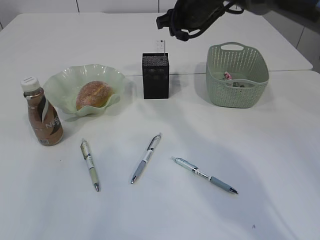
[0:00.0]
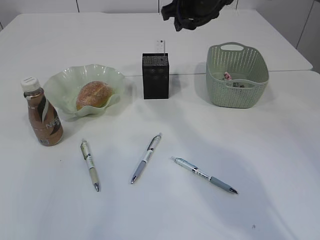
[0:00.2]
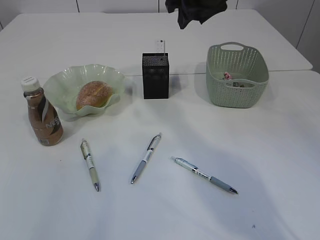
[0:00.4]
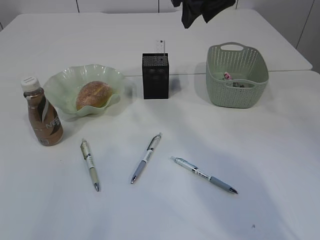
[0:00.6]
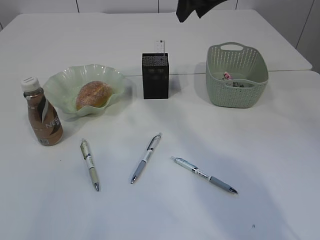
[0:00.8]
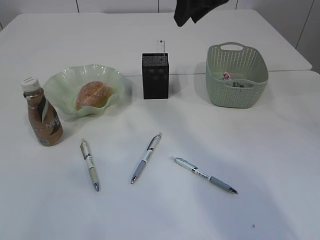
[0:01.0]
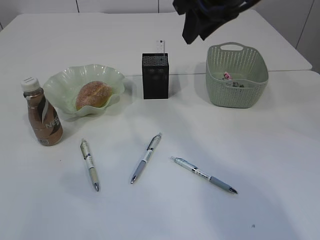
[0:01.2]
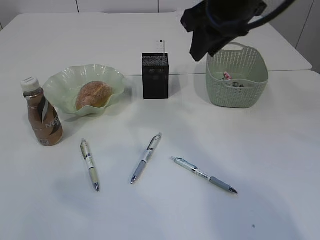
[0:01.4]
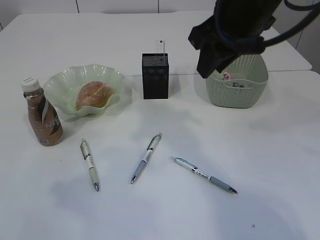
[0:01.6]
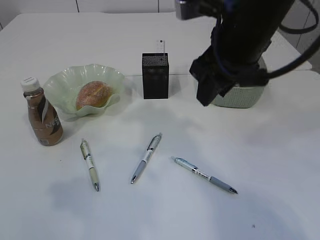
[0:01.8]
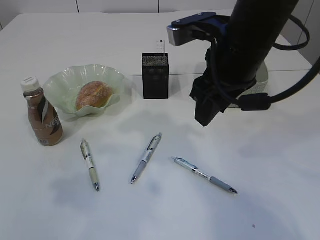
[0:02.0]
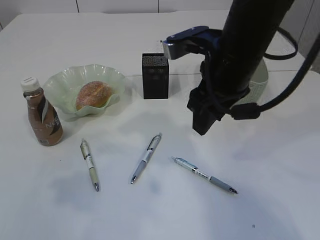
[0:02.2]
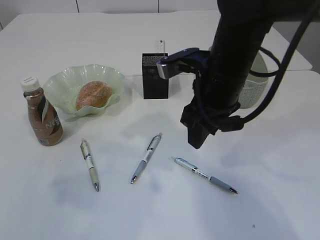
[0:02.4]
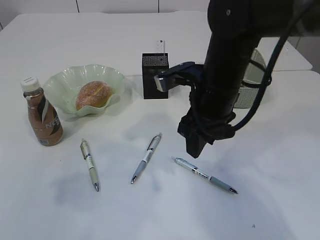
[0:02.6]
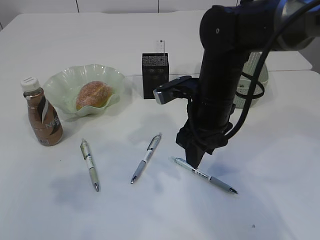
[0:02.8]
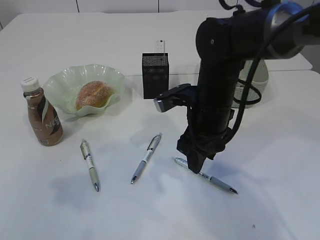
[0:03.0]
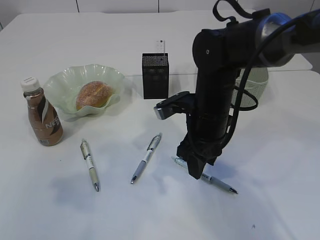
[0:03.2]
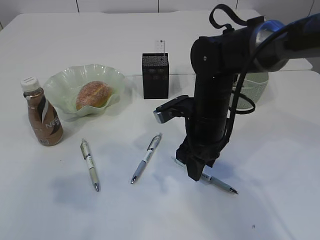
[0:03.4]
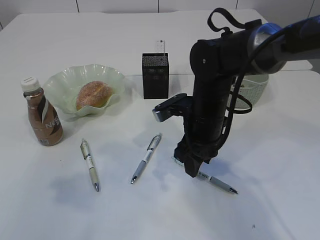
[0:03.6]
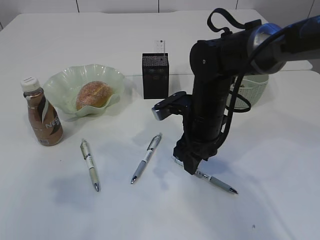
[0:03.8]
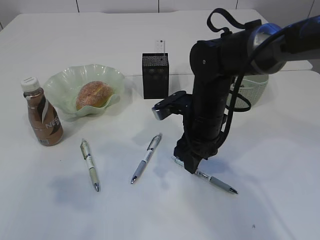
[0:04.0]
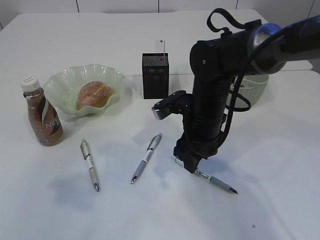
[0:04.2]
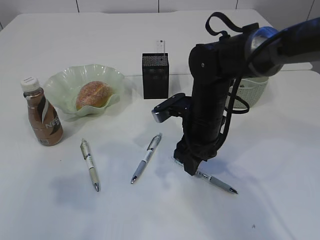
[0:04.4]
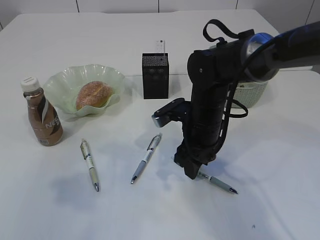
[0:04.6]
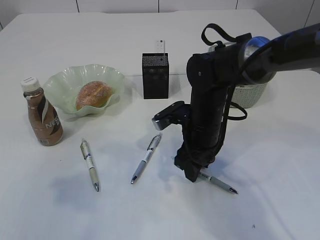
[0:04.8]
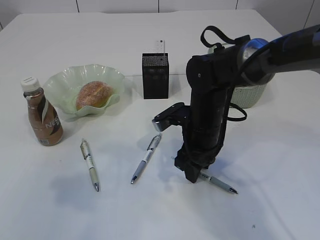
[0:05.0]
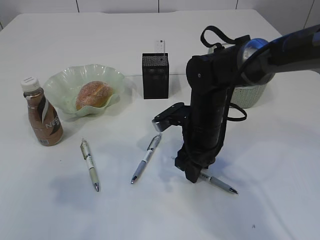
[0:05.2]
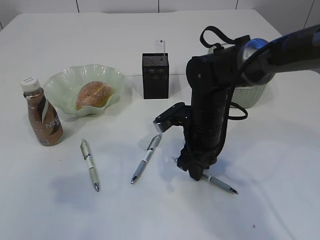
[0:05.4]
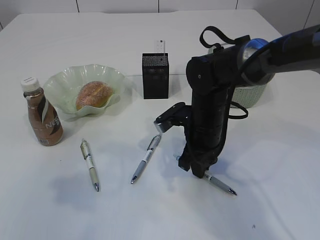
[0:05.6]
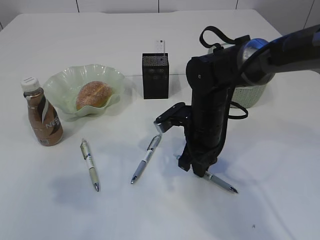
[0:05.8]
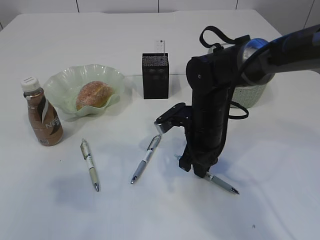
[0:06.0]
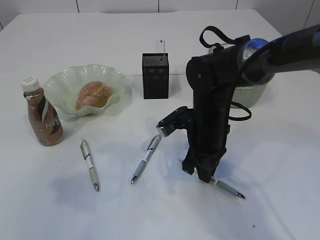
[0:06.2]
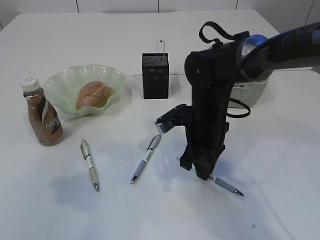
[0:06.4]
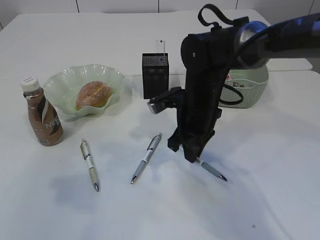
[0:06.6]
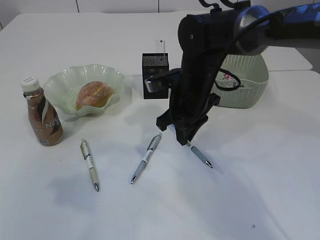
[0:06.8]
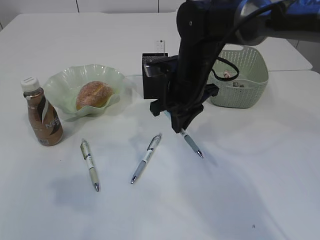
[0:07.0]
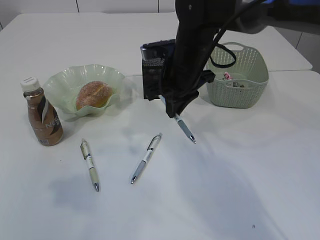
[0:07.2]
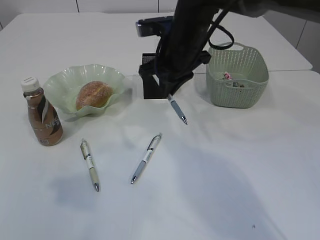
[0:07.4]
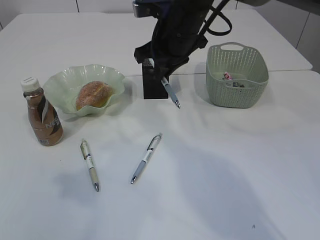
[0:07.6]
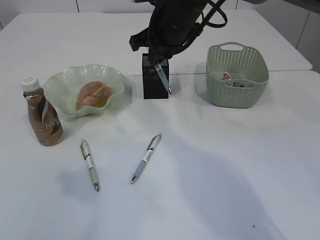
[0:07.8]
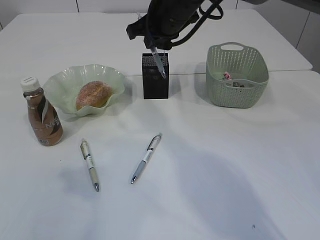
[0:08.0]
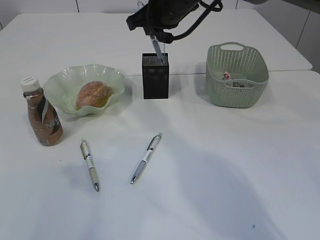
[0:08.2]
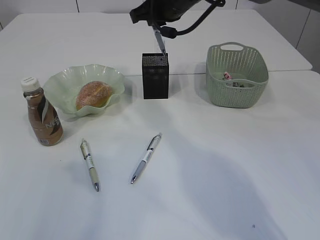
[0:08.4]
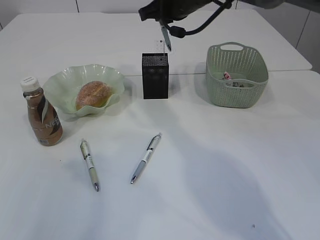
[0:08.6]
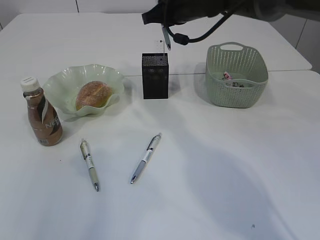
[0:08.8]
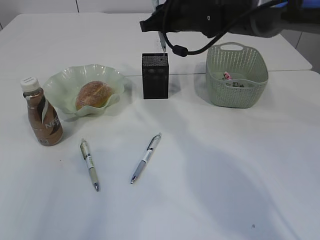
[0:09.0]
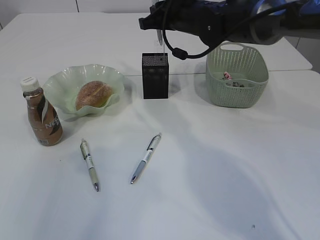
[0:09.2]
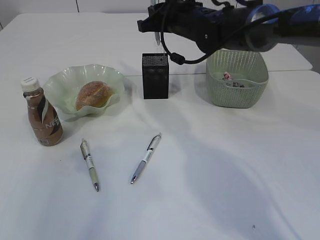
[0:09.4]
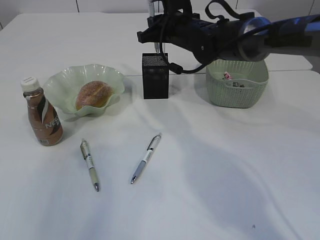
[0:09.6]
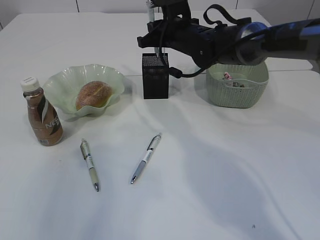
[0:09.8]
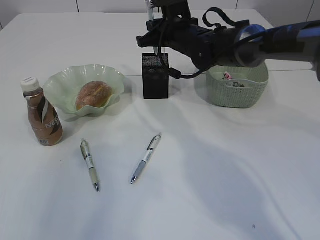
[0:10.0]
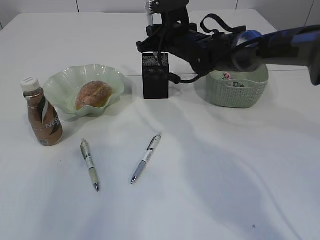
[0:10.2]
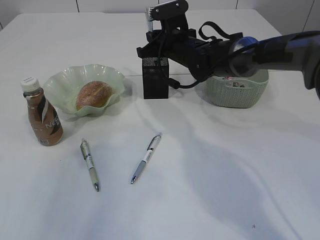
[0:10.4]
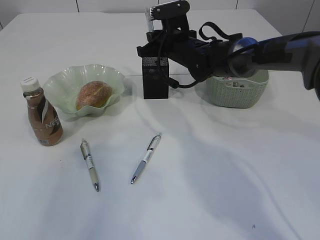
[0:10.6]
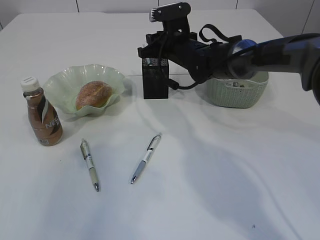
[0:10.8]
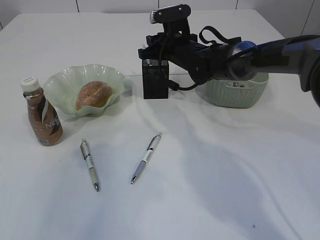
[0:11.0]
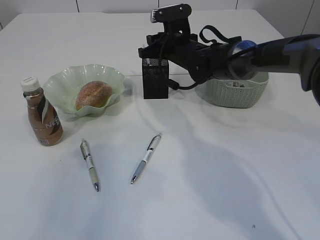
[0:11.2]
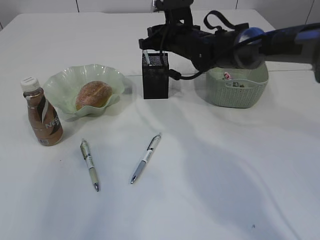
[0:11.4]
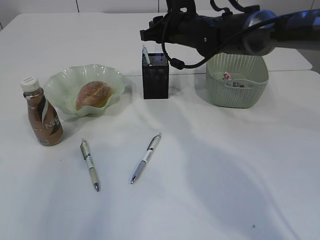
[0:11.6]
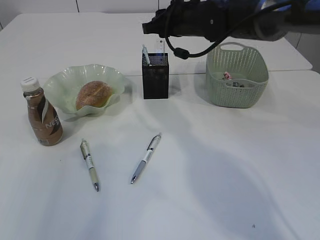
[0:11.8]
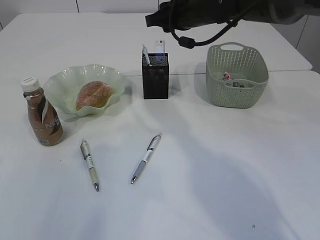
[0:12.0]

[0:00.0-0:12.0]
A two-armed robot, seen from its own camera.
Step, 0:00.2 to 0:07.0: Pick up the pen with right arm.
Step, 0:07.2 to 0:11.8: Place the pen into the pen holder.
0:00.0 to 0:01.6: The left gripper goes approximately 5 cm downward; the right gripper heads backward and upward, covering approximately 20 cm.
0:01.6 to 0:03.0: The right gripper is displaced downward by approximately 15 cm.
0:03.0 to 0:04.4: The grippers stay close to where they were, moving slightly.
0:04.4 to 0:06.0: The right gripper closes up.
0:06.0 to 0:07.6: The right gripper moves upward and forward, approximately 15 cm.
0:07.6 to 0:09.0: The right gripper moves forward, roughly 5 cm.
0:09.0 to 0:10.4: The right gripper is displaced downward by roughly 10 cm.
0:10.4 to 0:12.0: The right gripper is displaced upward by about 10 cm.

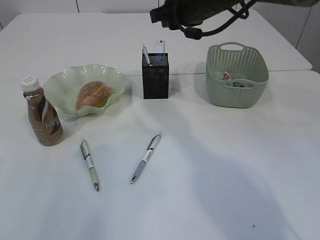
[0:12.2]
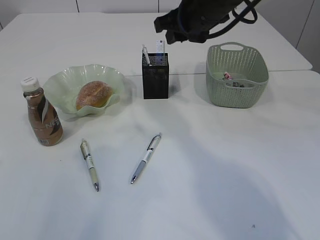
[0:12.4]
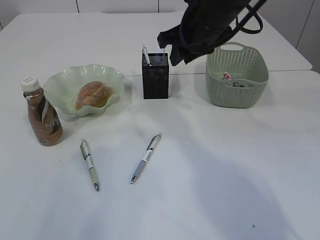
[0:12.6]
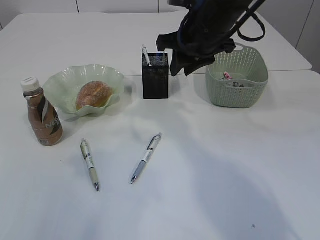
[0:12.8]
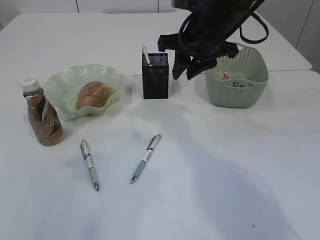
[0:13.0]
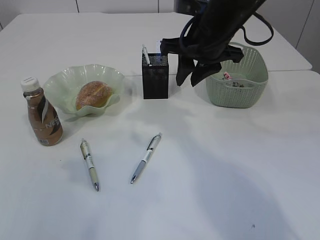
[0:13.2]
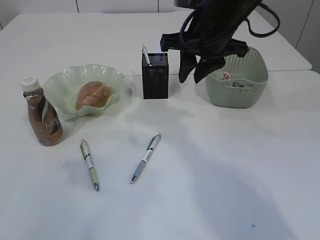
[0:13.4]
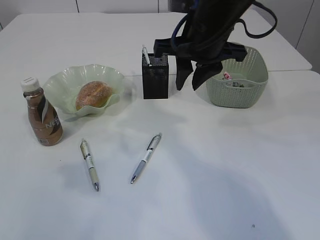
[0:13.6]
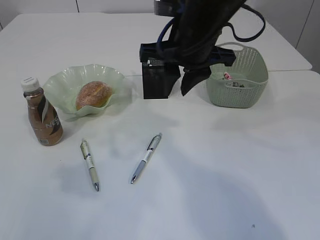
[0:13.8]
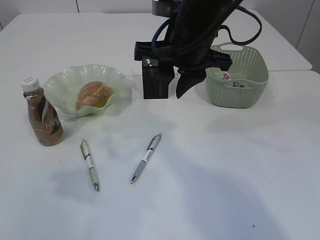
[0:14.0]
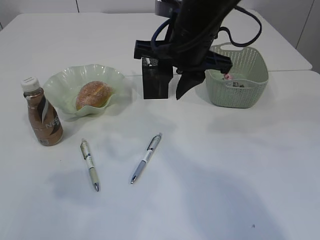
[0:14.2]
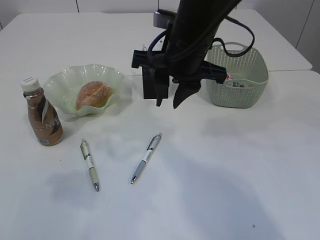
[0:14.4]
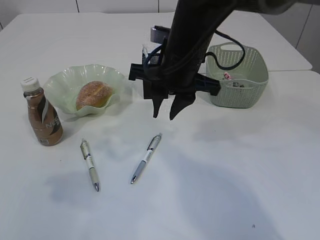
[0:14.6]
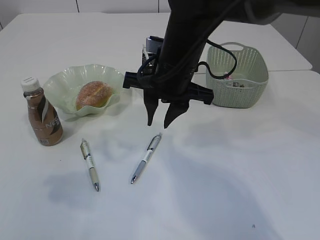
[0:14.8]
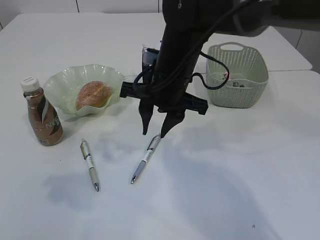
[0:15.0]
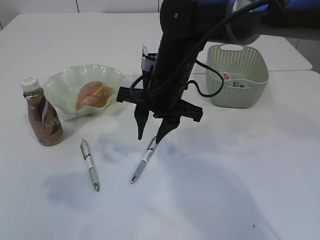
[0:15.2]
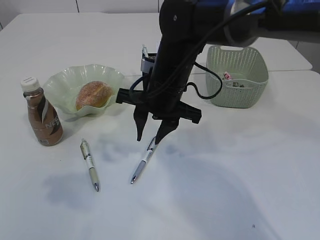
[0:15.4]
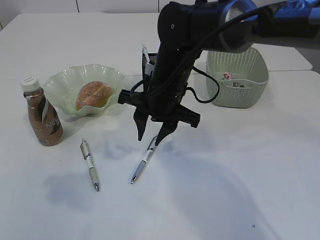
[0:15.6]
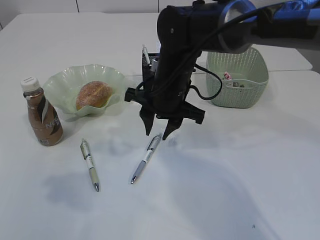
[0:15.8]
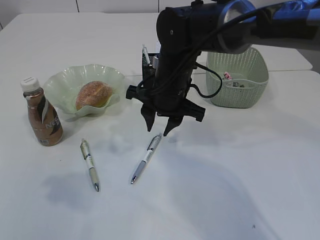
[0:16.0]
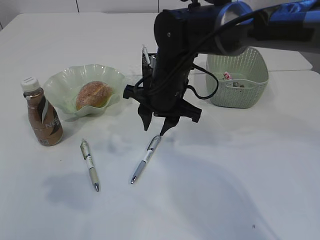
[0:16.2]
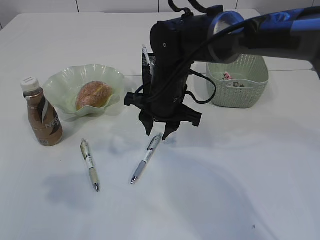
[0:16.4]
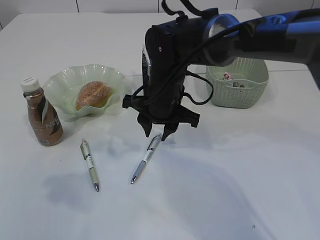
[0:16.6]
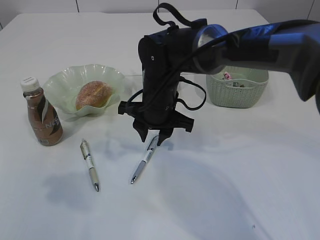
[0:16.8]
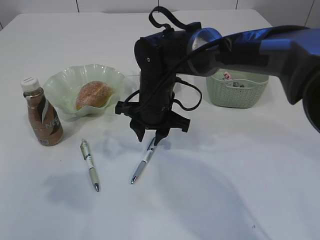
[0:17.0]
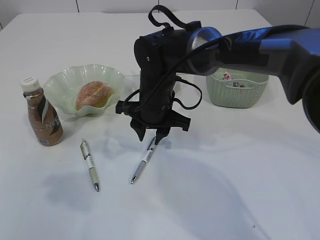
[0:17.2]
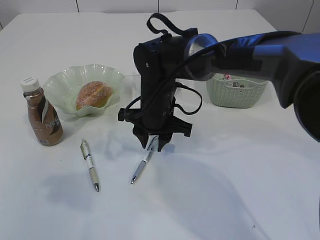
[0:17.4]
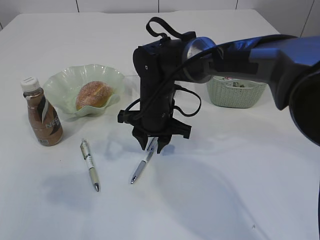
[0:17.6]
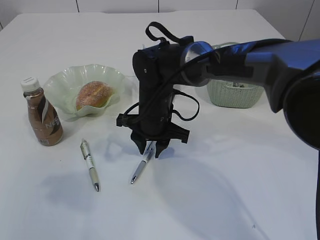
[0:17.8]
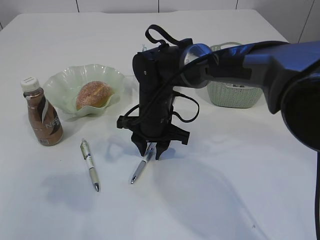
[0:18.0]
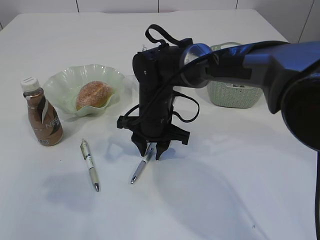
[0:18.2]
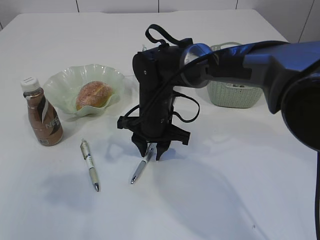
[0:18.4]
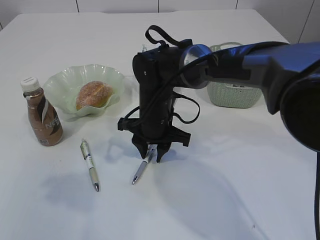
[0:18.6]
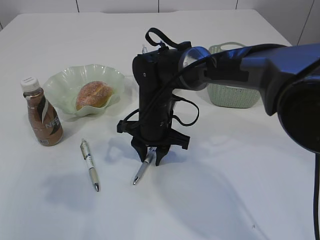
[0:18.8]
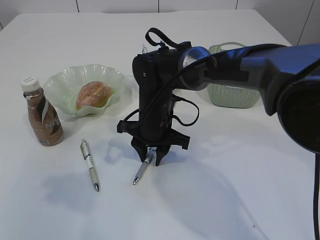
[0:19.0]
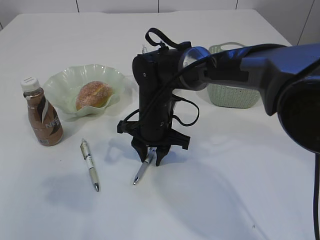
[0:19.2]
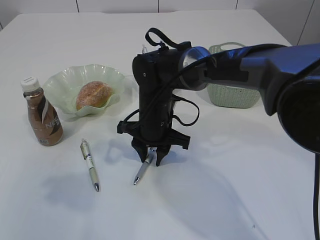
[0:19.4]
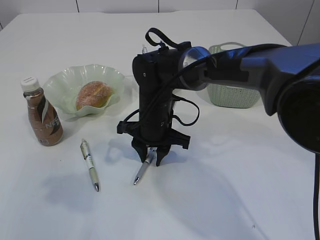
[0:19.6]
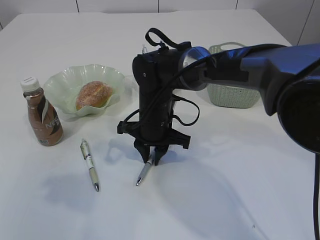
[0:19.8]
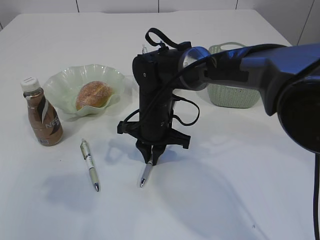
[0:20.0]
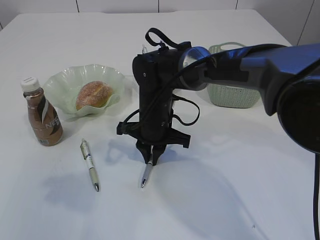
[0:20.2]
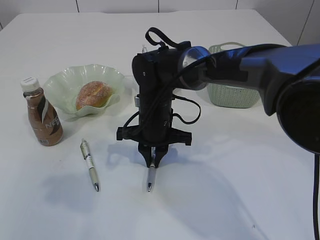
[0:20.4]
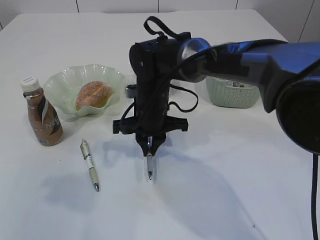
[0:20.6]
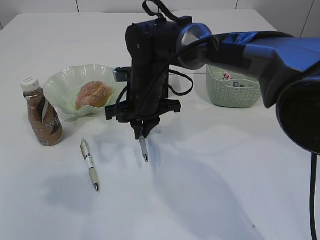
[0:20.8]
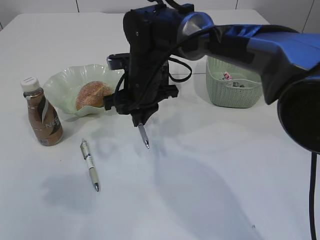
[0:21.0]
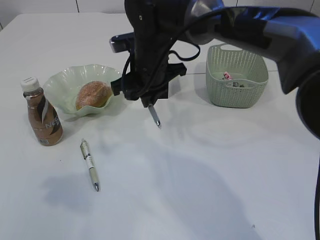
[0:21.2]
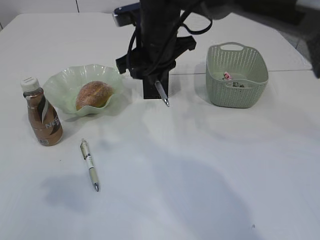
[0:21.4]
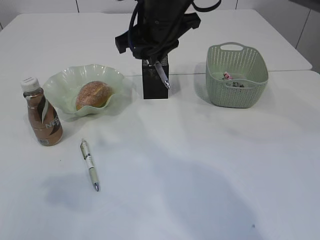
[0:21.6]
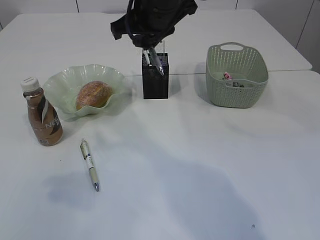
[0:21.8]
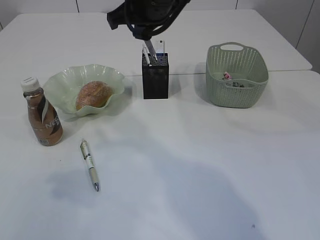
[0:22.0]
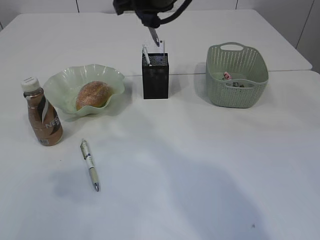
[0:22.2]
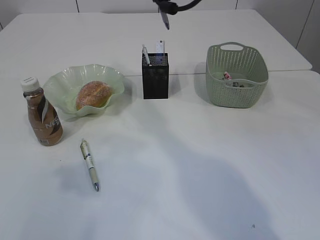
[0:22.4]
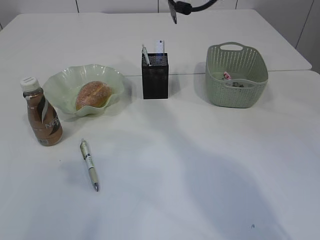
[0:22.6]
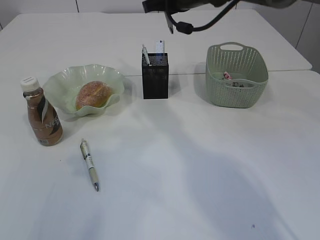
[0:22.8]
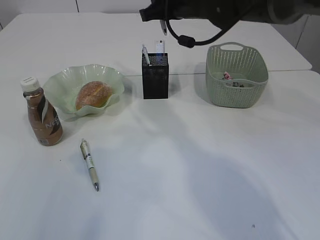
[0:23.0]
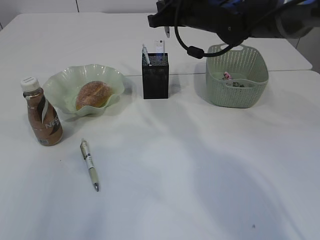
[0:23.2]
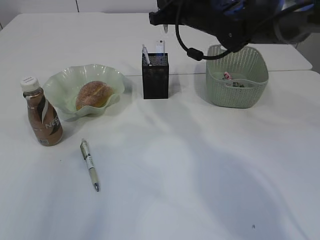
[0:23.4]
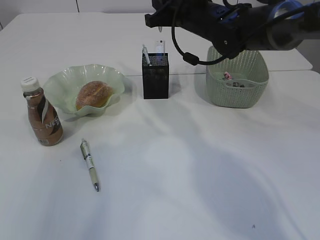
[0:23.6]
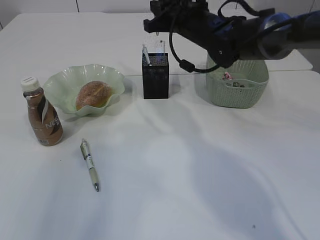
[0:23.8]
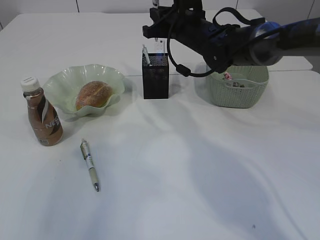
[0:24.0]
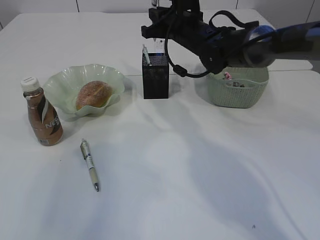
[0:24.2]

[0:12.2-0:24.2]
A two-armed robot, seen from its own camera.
Step, 0:12.2 to 0:21.2: Pick up the pen with right arm.
0:12.2 to 0:13.8: The right gripper shifts approximately 10 cm backward.
0:13.8 to 0:15.2: The right gripper travels downward by some 10 cm.
0:15.2 to 0:16.6: The grippers stay close to where they were, moving slightly.
0:16.6 to 0:18.2: The right gripper shifts by approximately 5 cm.
0:18.2 to 0:19.8: Both grippers stay put.
0:19.8 to 0:21.2: The right gripper shifts some 10 cm upward.
0:21.2 to 0:22.6: The right gripper moves upward and to the right, some 15 cm.
0:22.6 to 0:24.2: The right gripper shifts roughly 10 cm downward.
